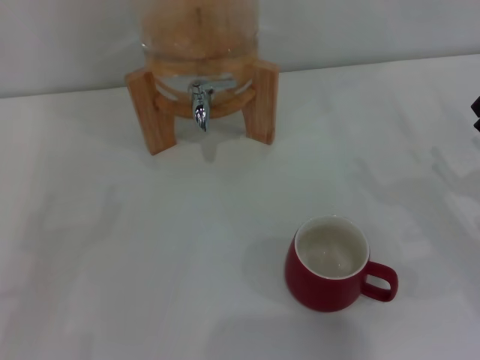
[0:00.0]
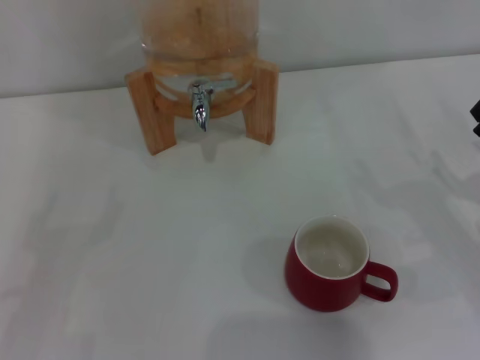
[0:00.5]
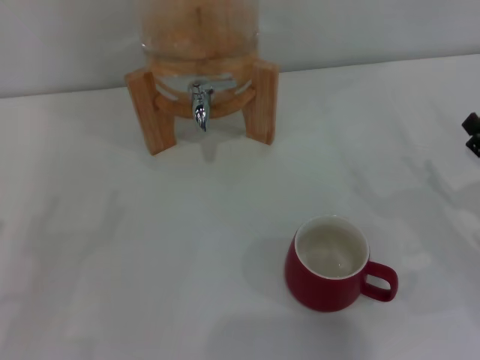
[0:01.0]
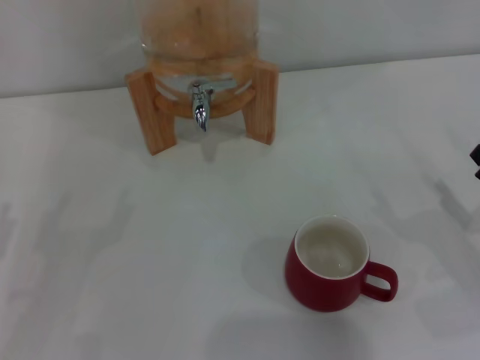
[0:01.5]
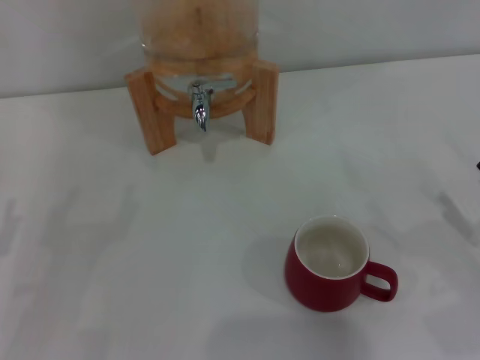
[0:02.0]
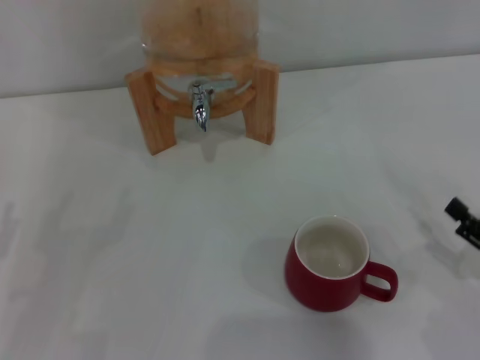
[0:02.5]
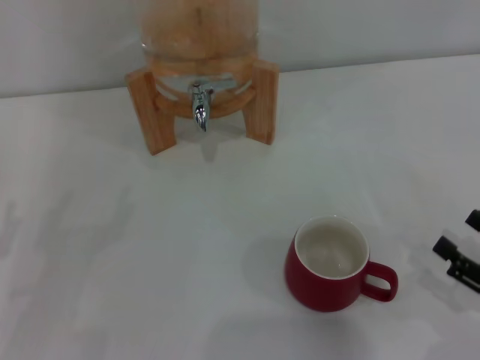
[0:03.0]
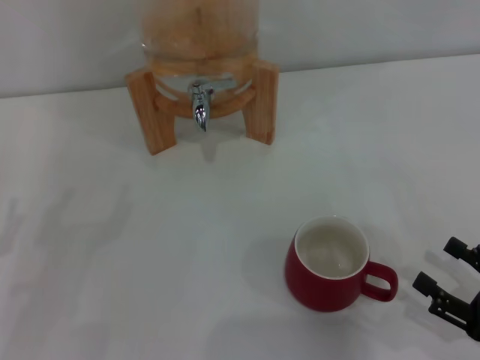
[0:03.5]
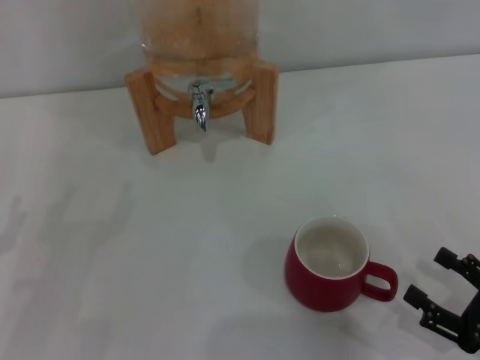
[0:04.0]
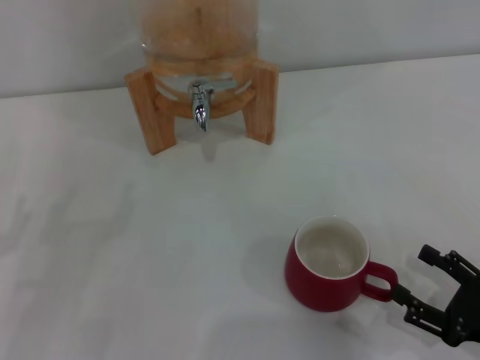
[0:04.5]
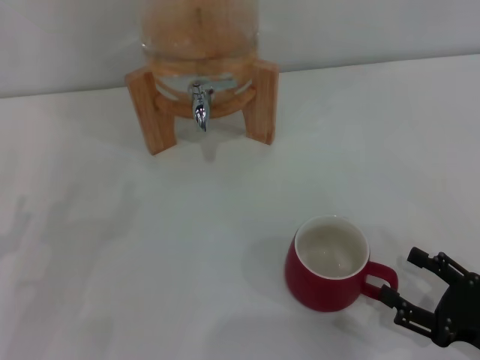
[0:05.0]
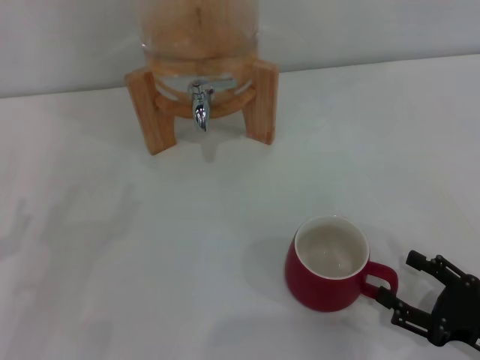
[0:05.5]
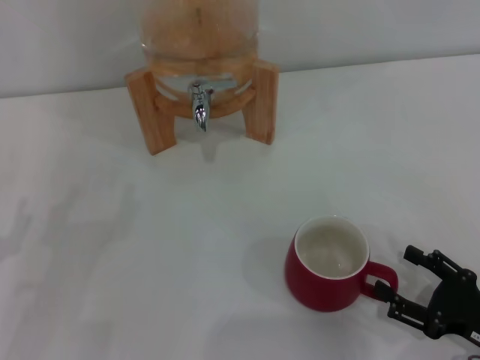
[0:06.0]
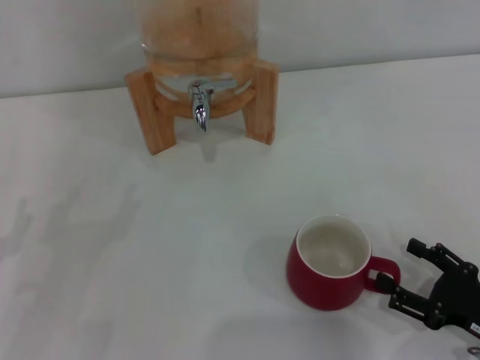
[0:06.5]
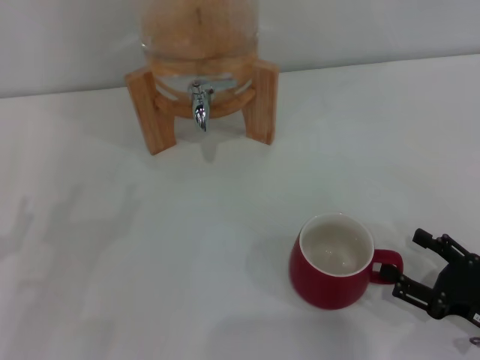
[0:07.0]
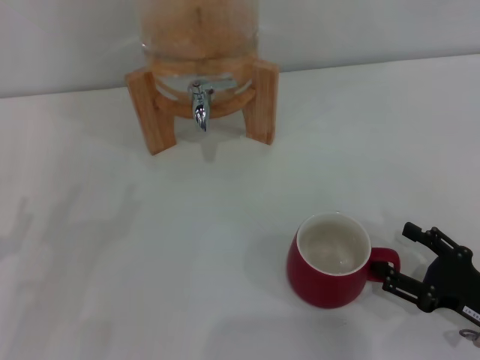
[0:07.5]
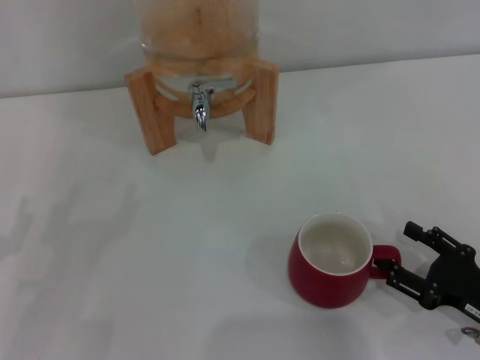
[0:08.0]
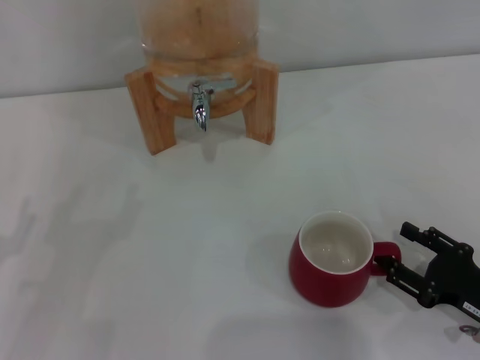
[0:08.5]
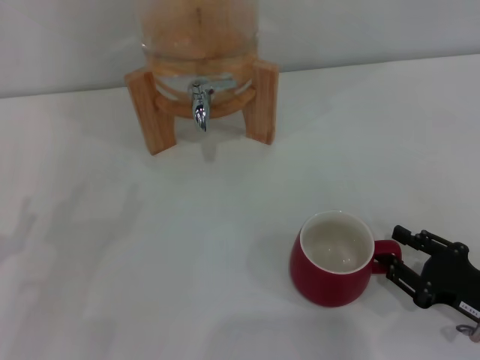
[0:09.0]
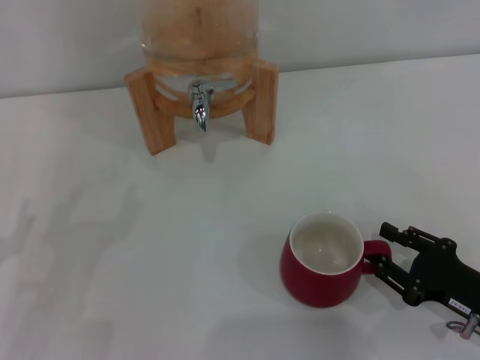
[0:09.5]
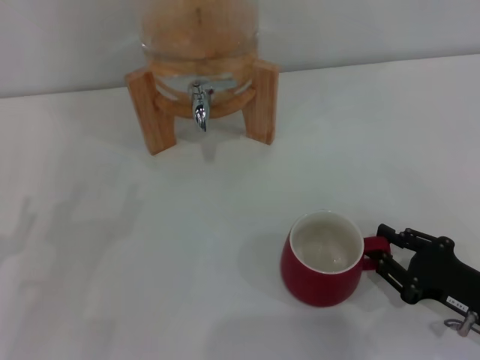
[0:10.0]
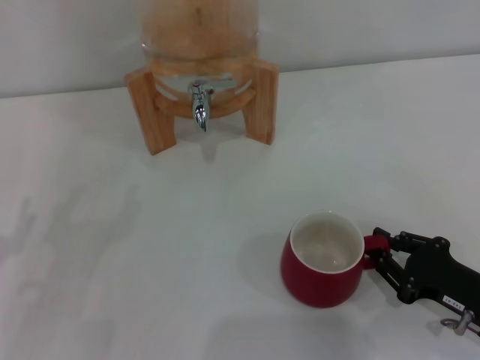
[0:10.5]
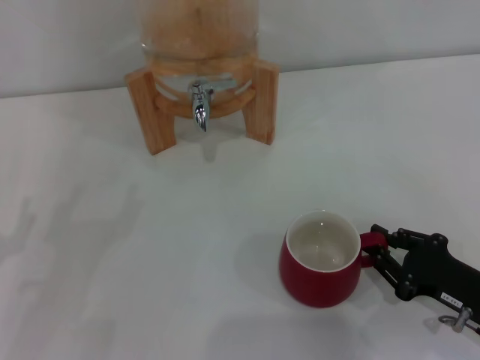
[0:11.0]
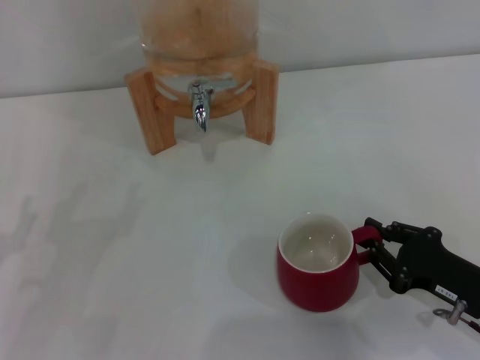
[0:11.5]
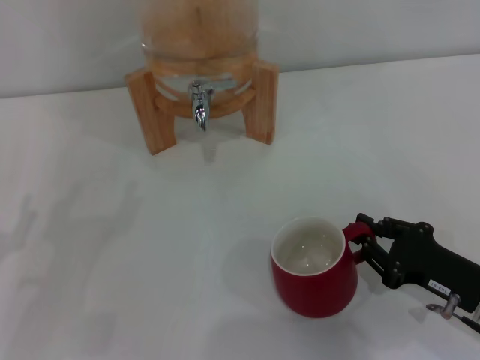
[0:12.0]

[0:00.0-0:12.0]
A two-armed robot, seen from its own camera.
Task of the whole recording: the right gripper pick up the red cup and place it horizontally under the faucet, the left gripper turn on the faucet to fill the cup, and then turn off the faucet.
0:02.0 to 0:04.0: The right gripper moves backward, some 5 cm.
0:04.0 to 0:08.0: The grippers move only a little.
0:08.0 to 0:10.0: The right gripper closes.
0:10.0 to 0:12.0: There are only small adjustments of the grippers.

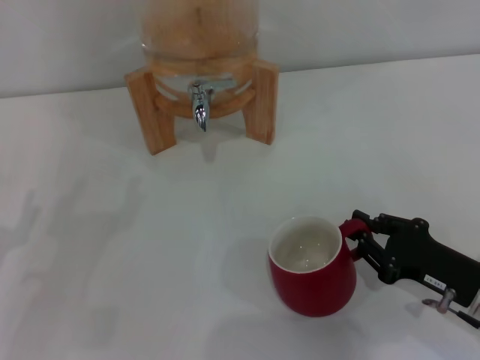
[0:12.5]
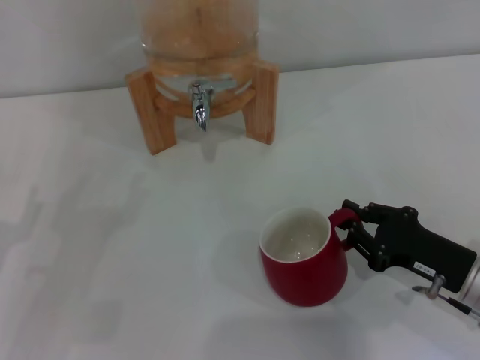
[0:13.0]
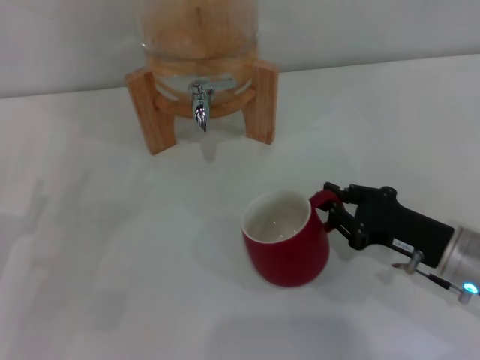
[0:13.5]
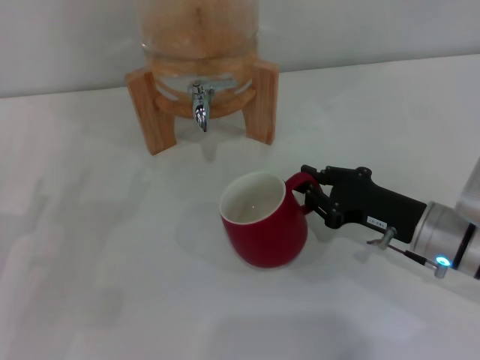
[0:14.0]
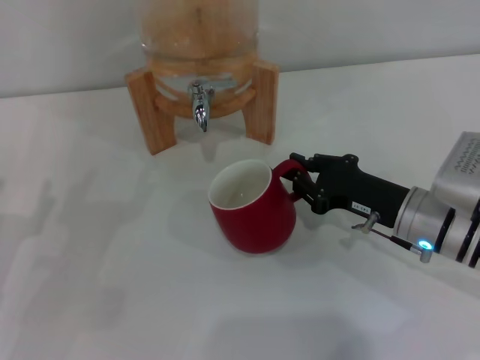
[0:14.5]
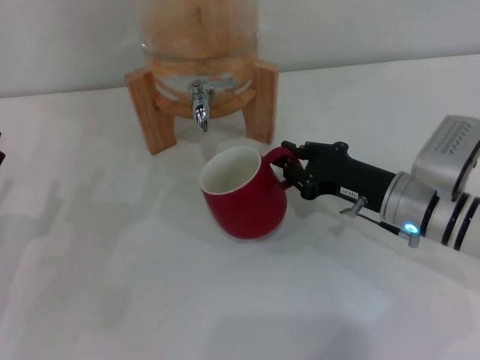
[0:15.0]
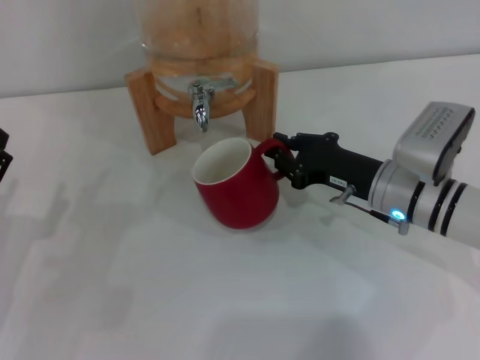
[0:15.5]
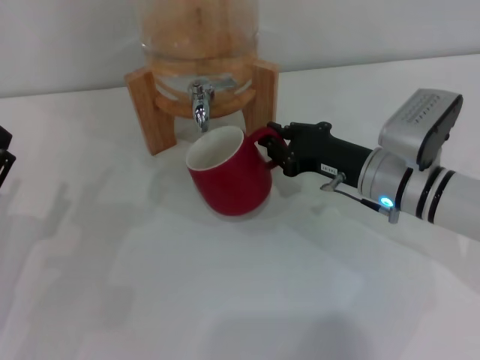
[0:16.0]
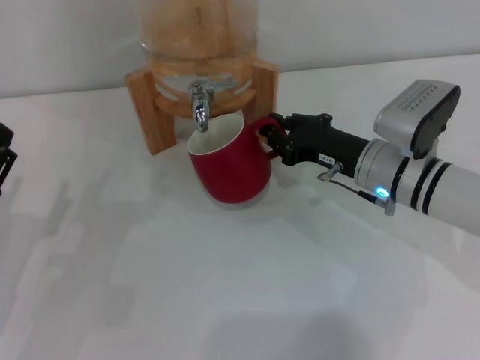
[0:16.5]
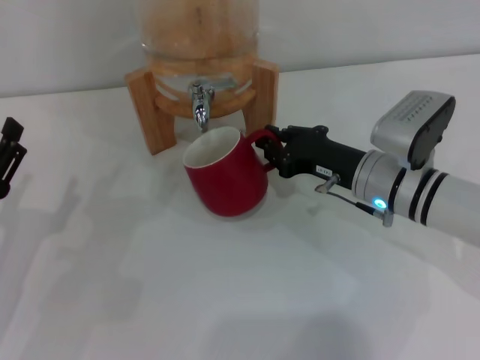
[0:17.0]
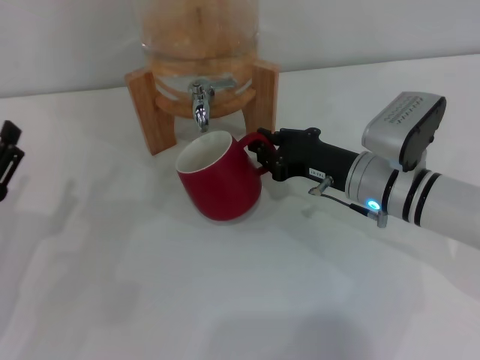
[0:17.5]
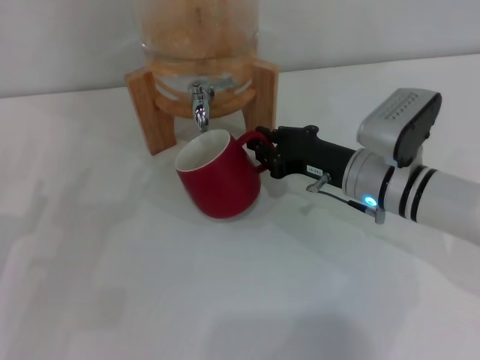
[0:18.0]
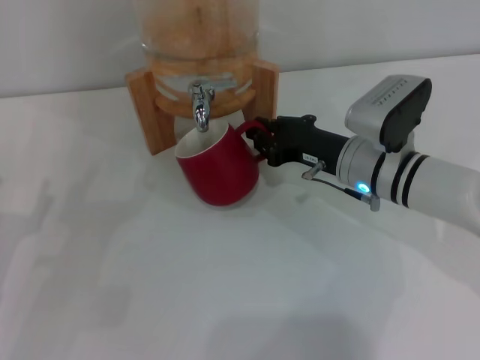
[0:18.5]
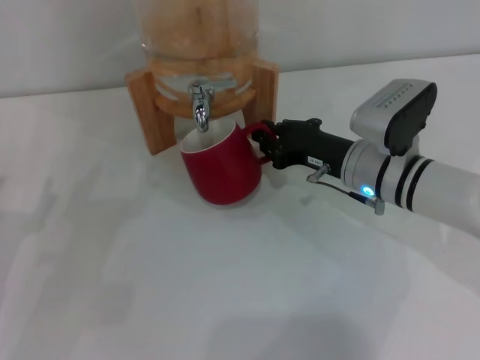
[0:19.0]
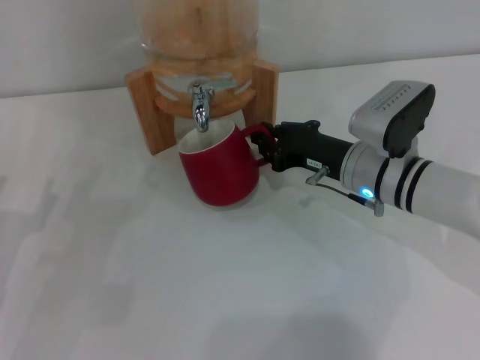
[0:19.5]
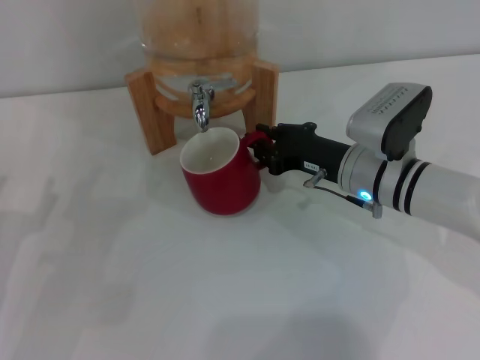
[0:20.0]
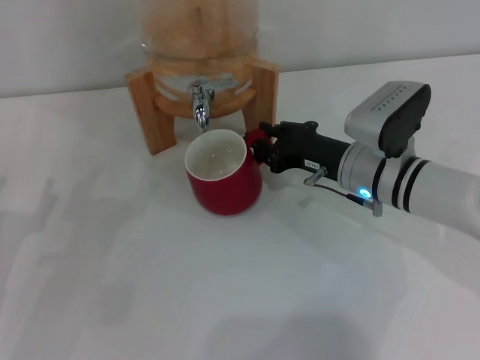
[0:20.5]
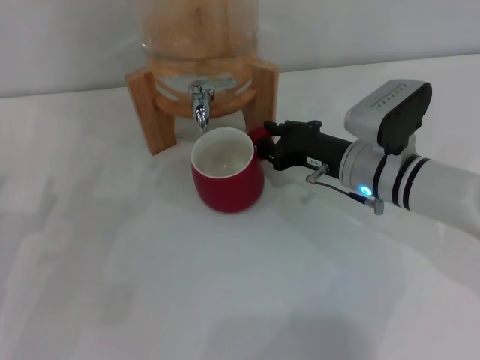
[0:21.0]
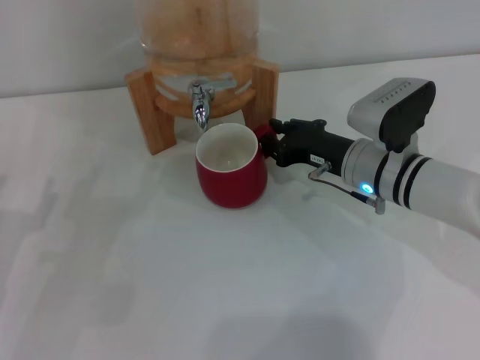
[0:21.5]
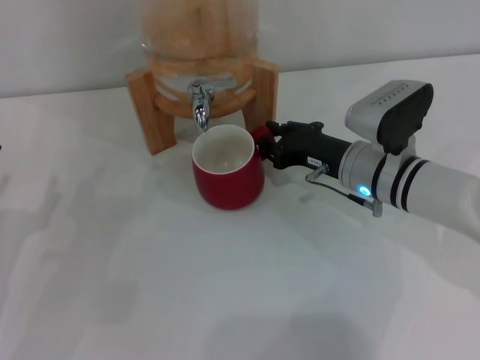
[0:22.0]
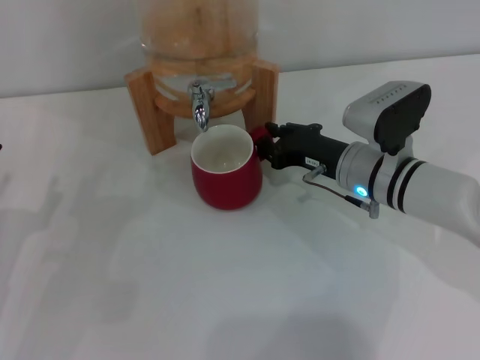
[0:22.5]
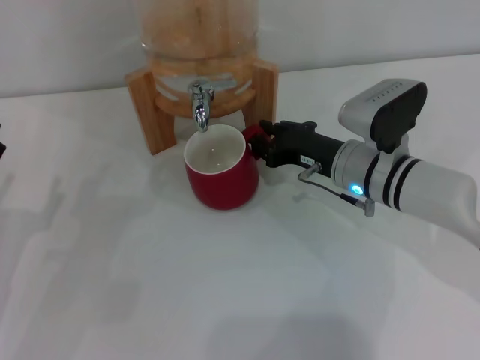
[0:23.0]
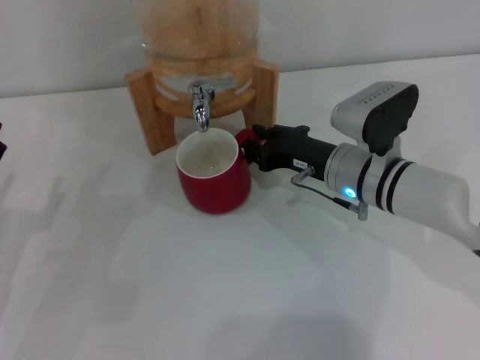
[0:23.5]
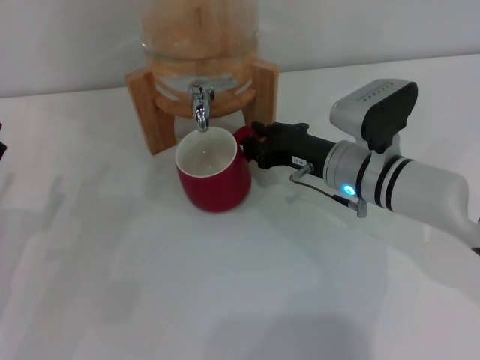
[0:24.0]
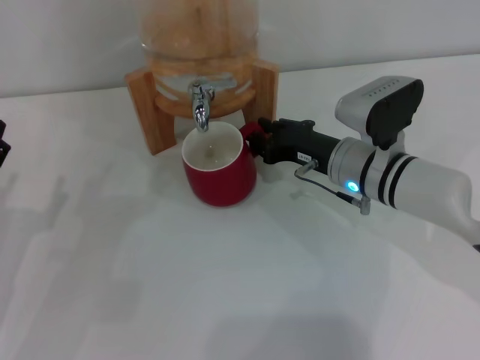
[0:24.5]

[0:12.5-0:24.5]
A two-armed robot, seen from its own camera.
Task of the whole recording: the right gripper pick up the red cup and place it horizontally under the faucet, the left gripper turn on the faucet to fill the cup, and then turn off the faucet.
0:12.5 to 0:14.5: The right gripper goes some 10 cm forward and to the left.
0:14.5 to 0:16.5: The right gripper goes approximately 5 cm forward.
0:16.5 to 0:18.5: The grippers stay close to where they were, moving slightly.
0:18.5 to 0:20.5: Both grippers stay put.
0:20.5 to 0:24.5: The grippers move only a little.

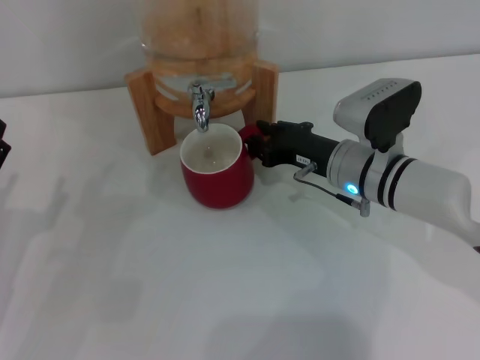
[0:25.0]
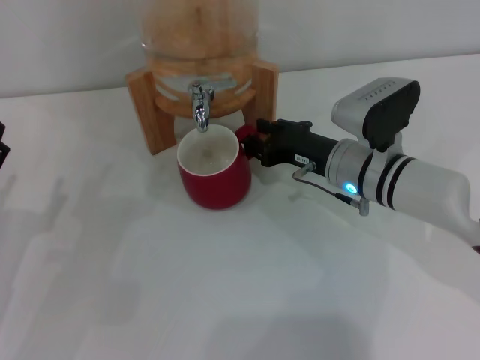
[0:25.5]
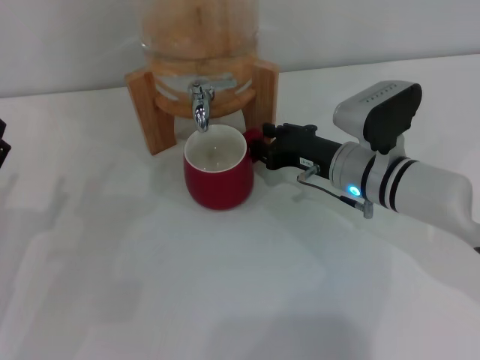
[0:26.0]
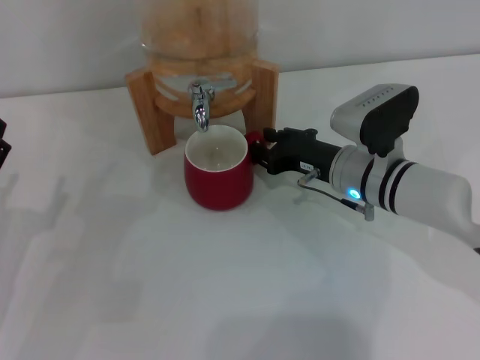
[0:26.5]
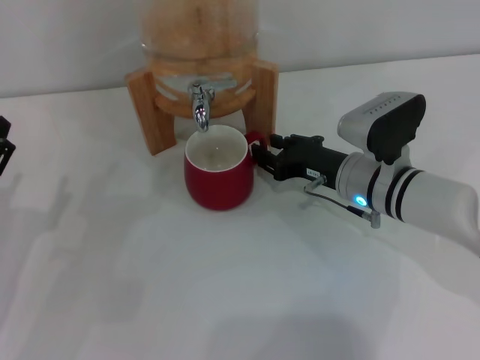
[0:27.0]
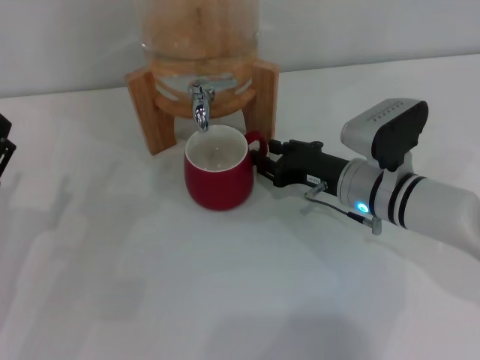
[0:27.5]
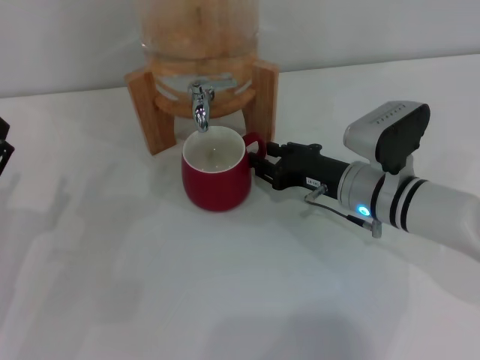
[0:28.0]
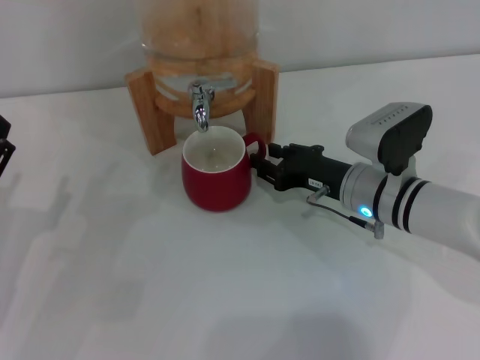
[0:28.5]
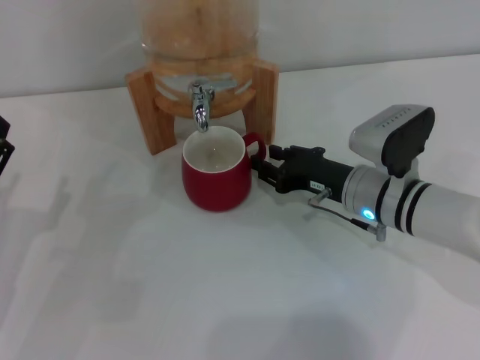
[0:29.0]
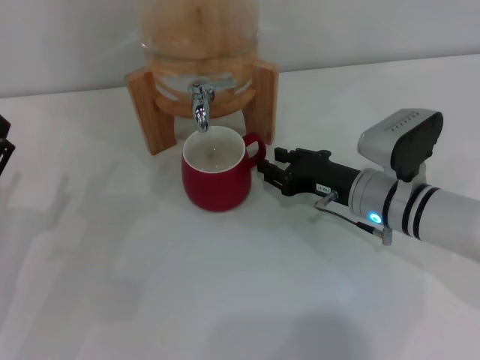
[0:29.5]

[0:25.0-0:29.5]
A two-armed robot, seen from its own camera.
Task of the whole recording: the right gripper pick up the red cup and place it horizontally under the faucet, the left gripper turn on the faucet to fill the cup, and then turn off the faucet.
0:25.0 to 0:29.5: There are only small adjustments of the grippers.
